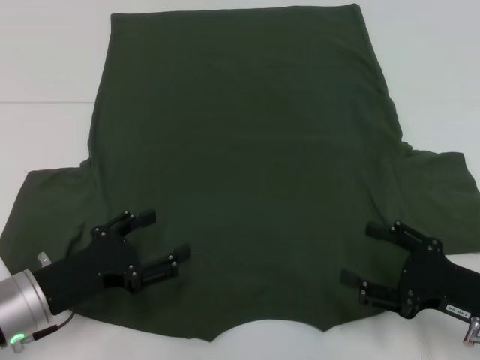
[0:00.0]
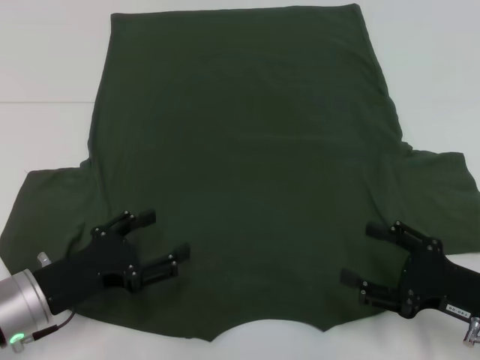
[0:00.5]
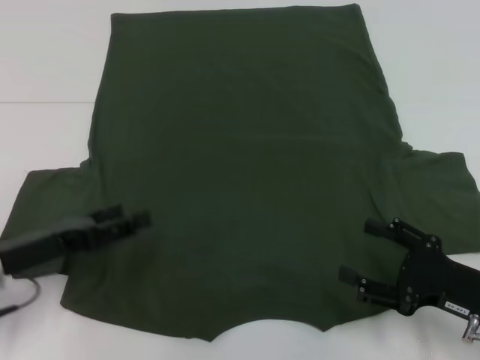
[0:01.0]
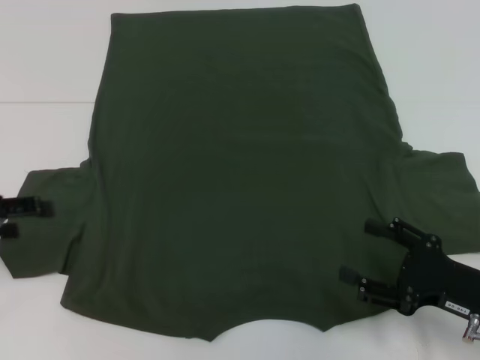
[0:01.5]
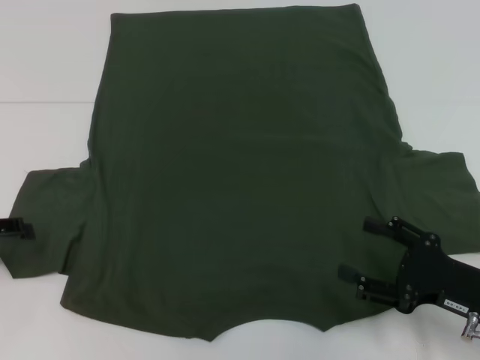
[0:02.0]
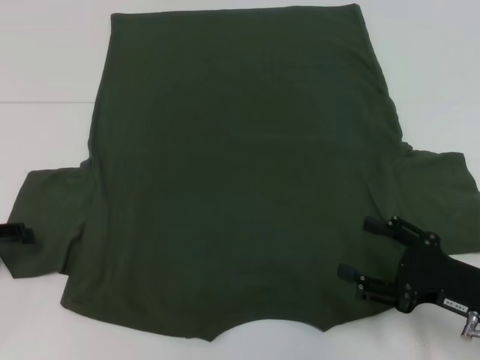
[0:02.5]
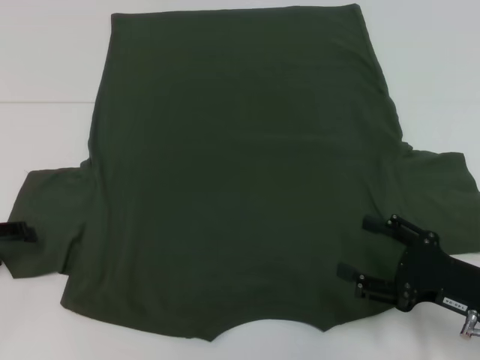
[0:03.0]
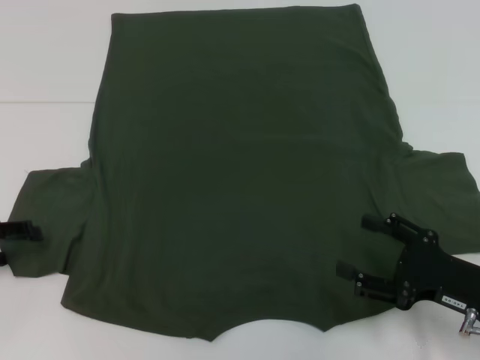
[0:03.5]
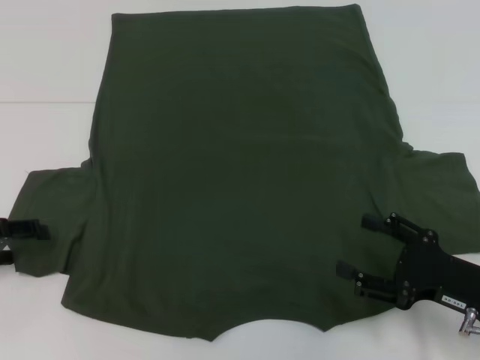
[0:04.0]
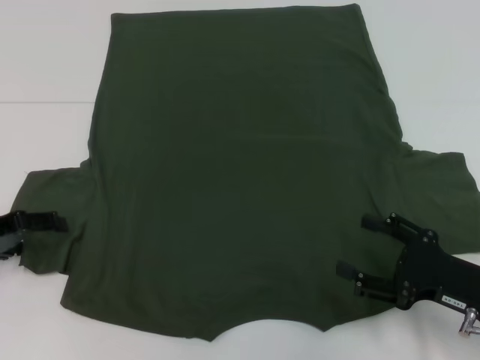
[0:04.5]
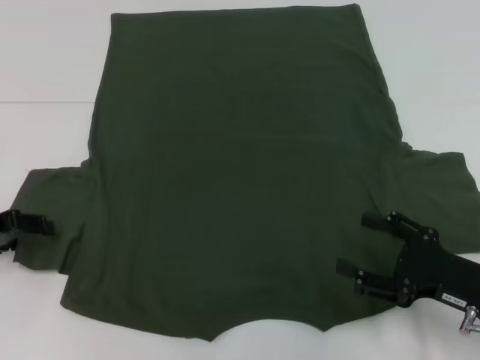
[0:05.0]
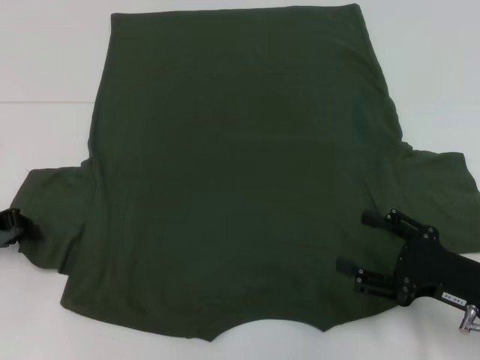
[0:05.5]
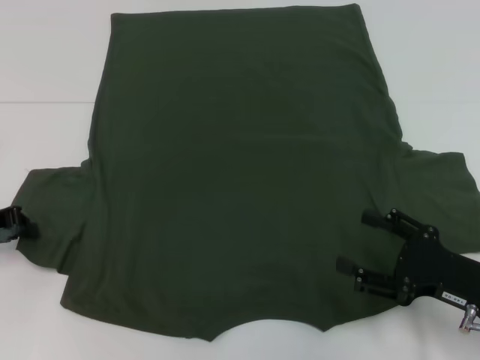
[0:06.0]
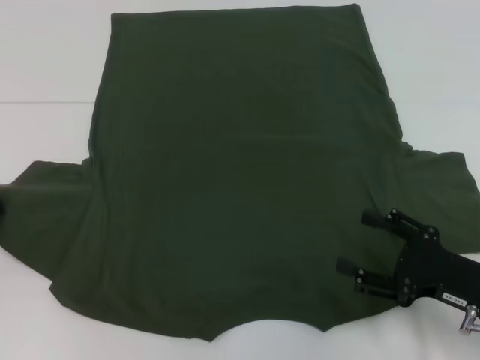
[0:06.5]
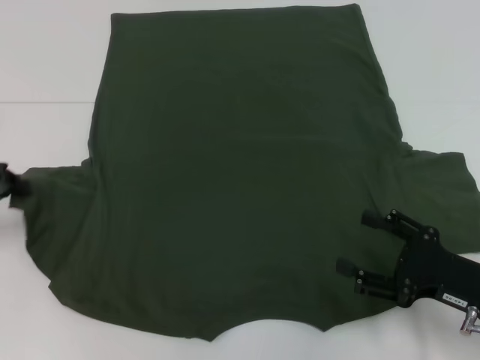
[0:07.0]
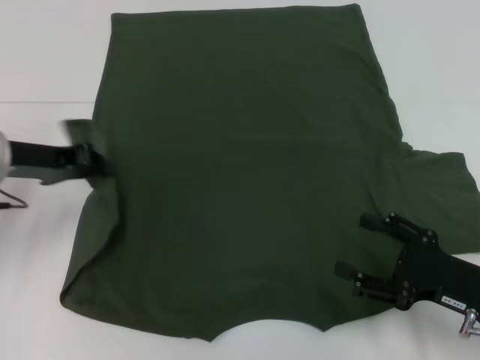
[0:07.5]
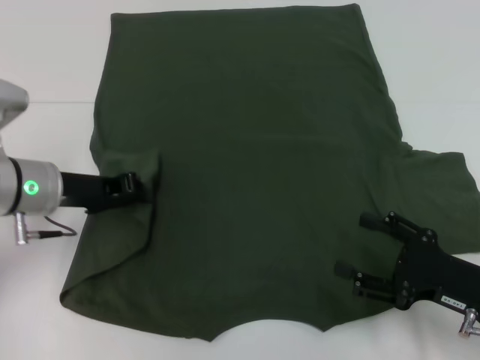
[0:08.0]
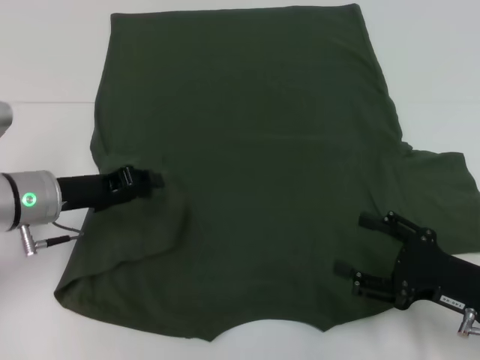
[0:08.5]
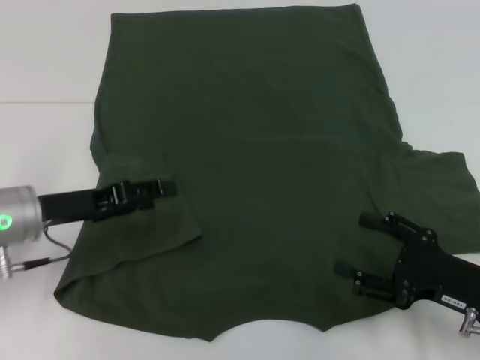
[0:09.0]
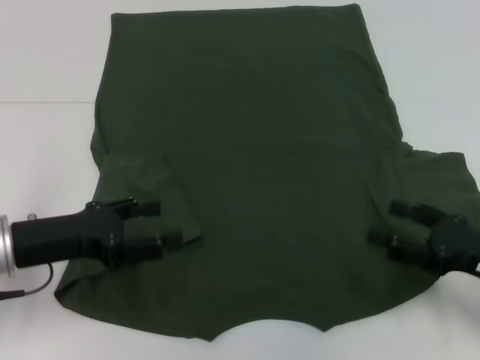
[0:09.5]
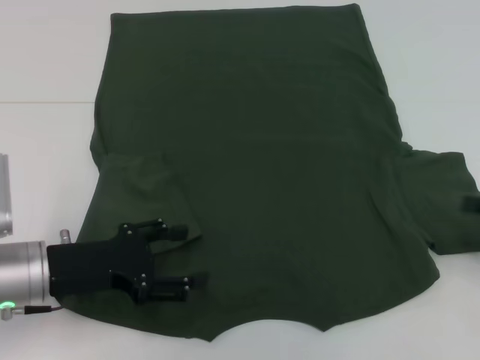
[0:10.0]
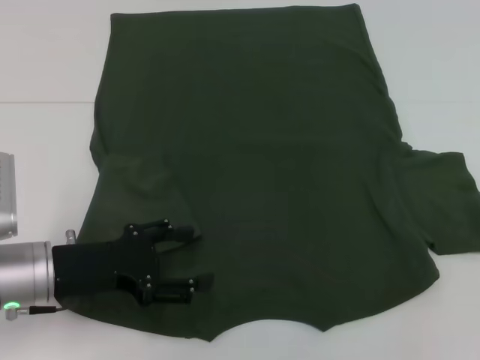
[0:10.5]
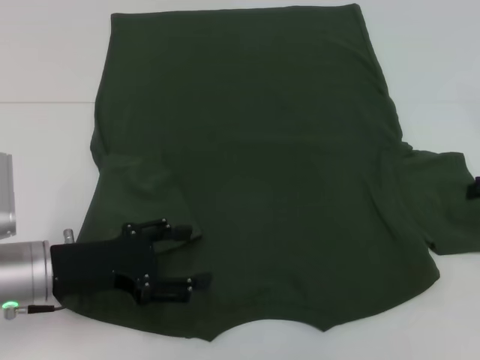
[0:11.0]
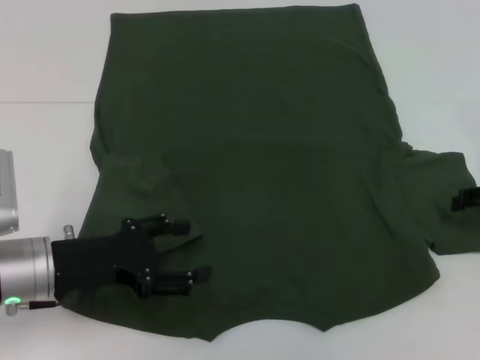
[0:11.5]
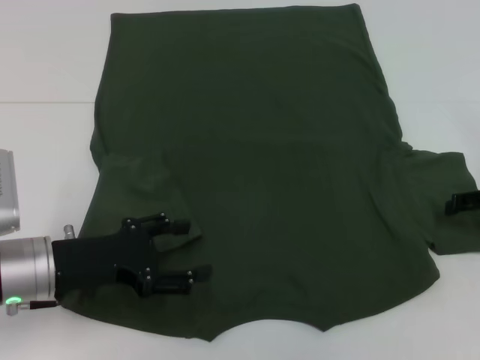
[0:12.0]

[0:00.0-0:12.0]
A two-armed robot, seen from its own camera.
Step, 0:00.0 to 0:08.5: Fold the bottom left sleeve with your left hand.
0:00.0 to 0:02.0: The left gripper shifts some 15 cm to the left and upward.
0:02.0 to 0:04.0: The grippers make only small movements.
0:04.0 to 0:06.0: The left gripper closes.
0:06.0 to 0:08.0: The left gripper moves to the right, some 10 cm.
0:08.0 to 0:10.0: The left gripper shifts approximately 10 cm backward, and opens, while the right gripper heads to the right and upward, covering approximately 15 cm.

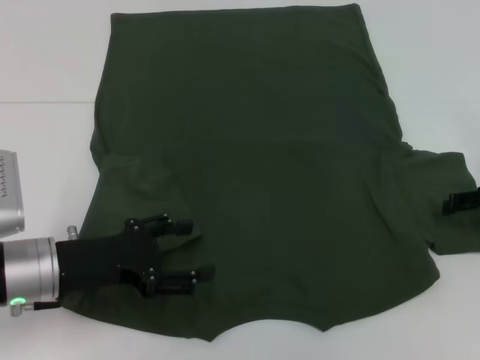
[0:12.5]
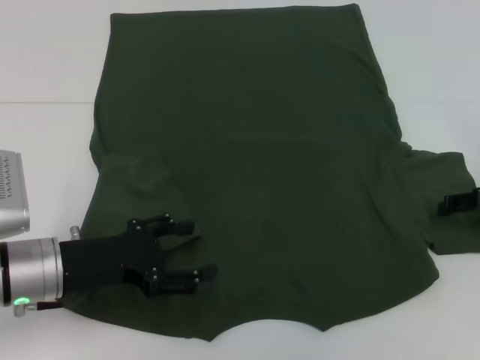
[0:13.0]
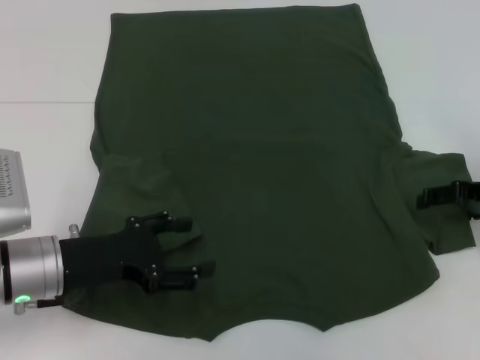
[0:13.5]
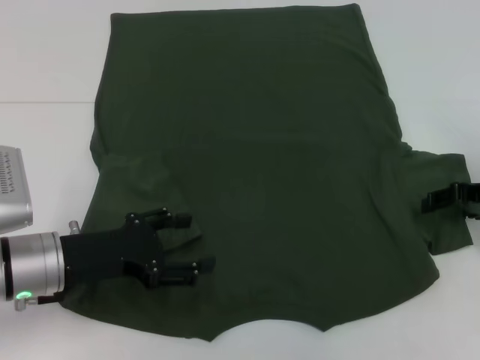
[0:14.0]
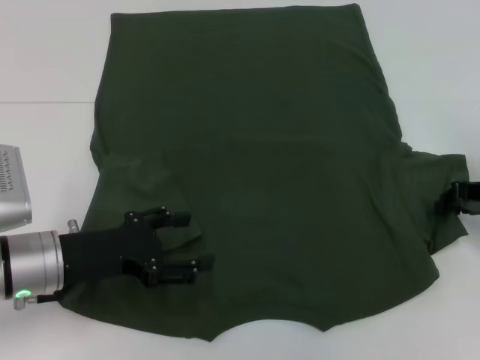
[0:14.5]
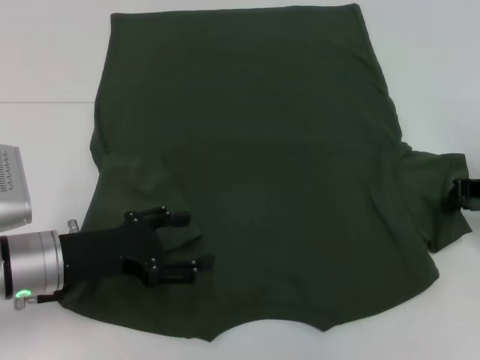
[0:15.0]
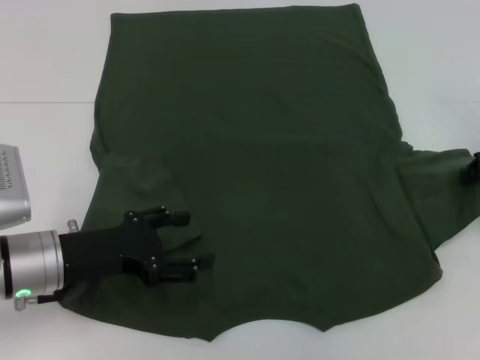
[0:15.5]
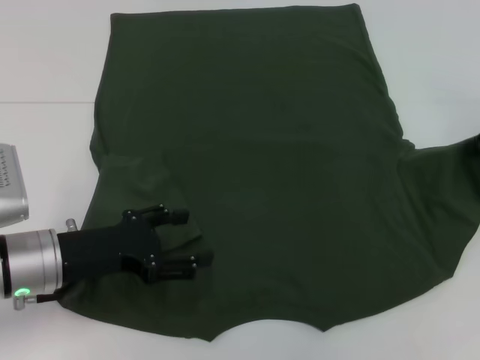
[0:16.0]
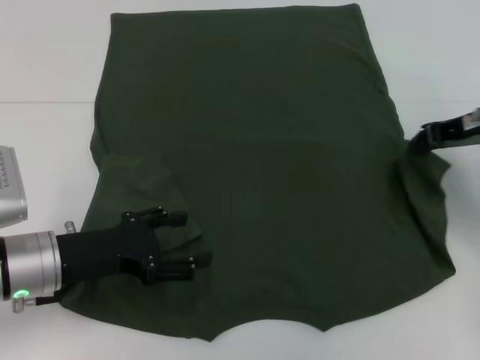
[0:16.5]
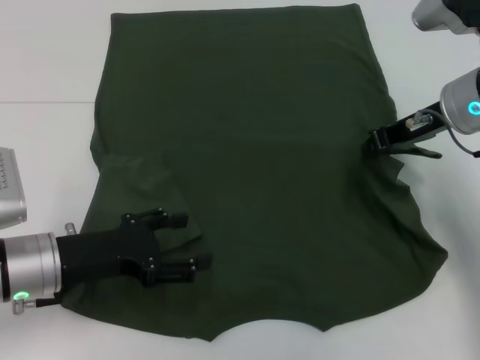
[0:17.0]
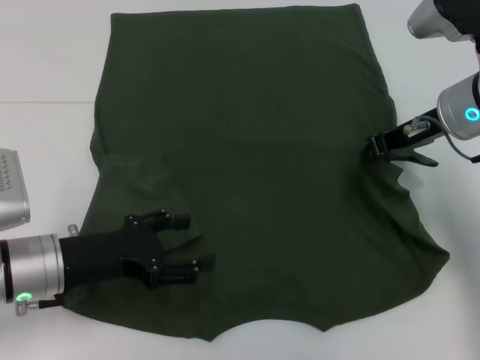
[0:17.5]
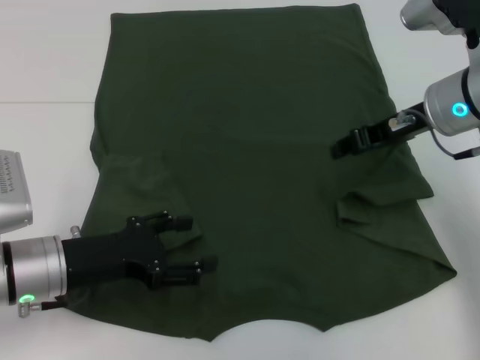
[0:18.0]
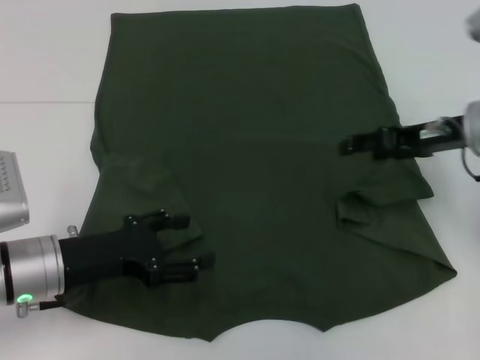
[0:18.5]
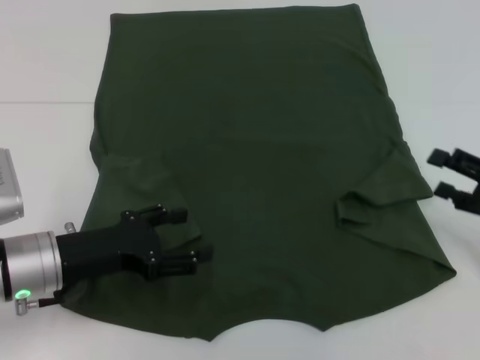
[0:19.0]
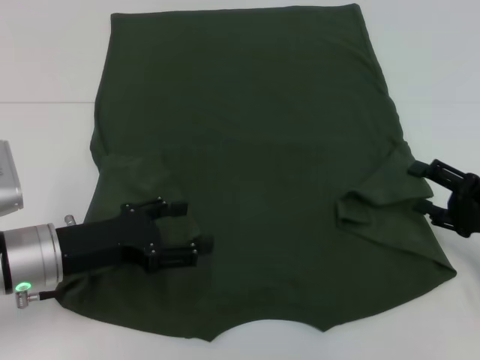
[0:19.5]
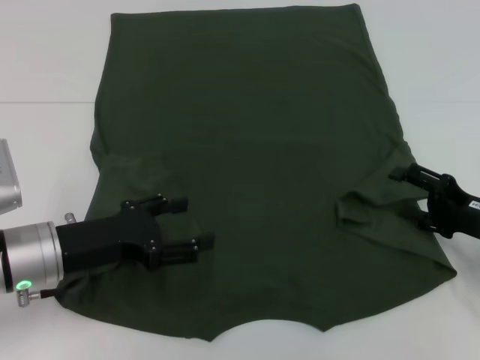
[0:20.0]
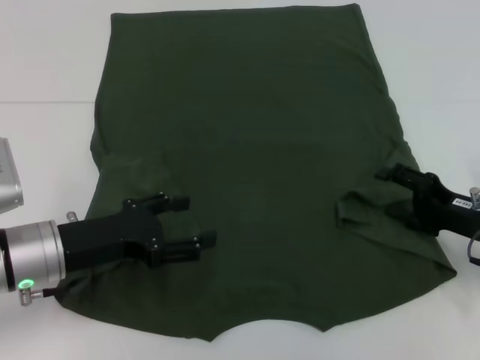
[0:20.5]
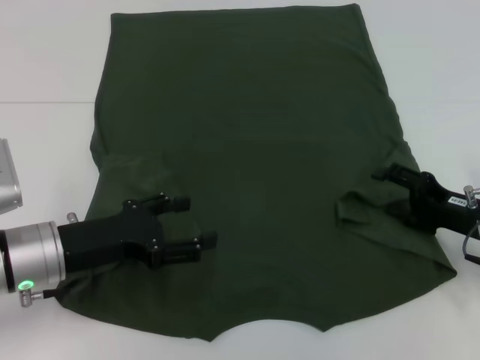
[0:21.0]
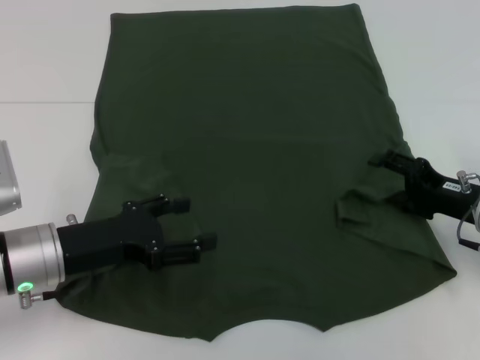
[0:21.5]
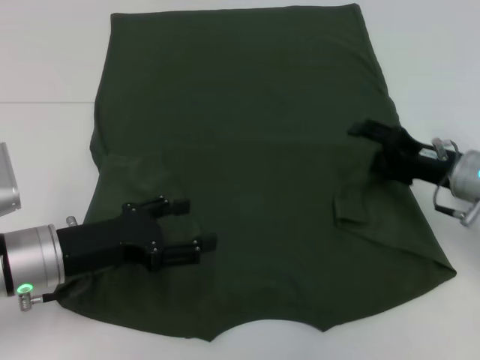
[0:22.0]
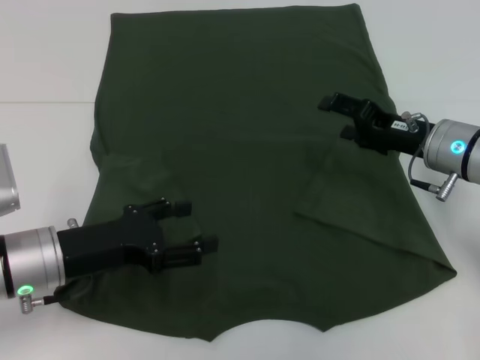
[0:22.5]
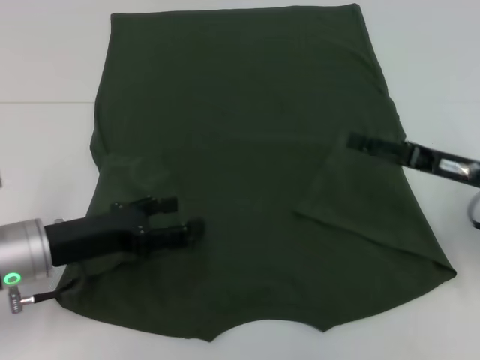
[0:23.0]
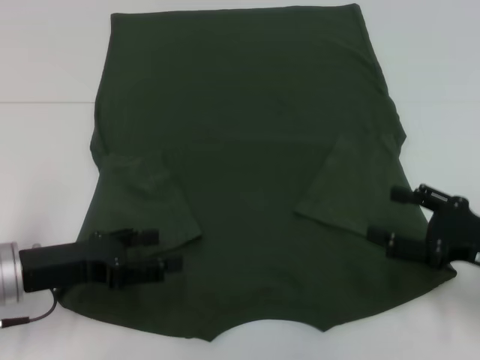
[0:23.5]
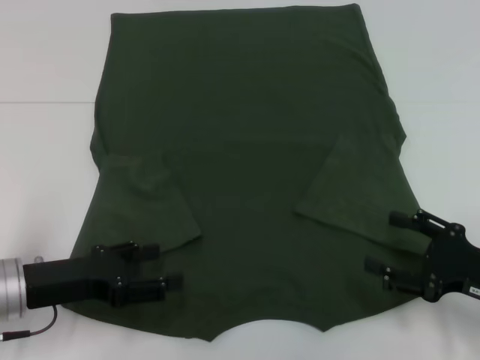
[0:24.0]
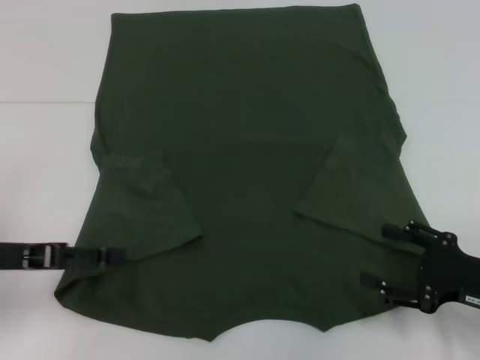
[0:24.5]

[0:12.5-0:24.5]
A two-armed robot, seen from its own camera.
Step, 0:12.5 to 0:22.5: Fold the bottom right sleeve with your right hand.
0:12.5 to 0:14.5: The right gripper closes.
0:14.5 to 0:16.5: The right gripper shifts approximately 5 cm upward, and closes its fingers.
0:16.5 to 0:18.5: The right gripper opens.
0:18.5 to 0:20.5: The right gripper moves downward and backward, about 15 cm.
0:20.5 to 0:22.5: The right gripper is displaced forward, to the left and upward by about 10 cm.
0:22.5 to 0:24.5: The right gripper moves backward and to the right, about 15 cm. Meanwhile the left gripper travels to the left by some 10 cm.

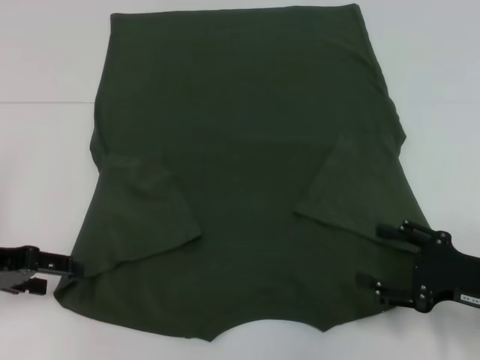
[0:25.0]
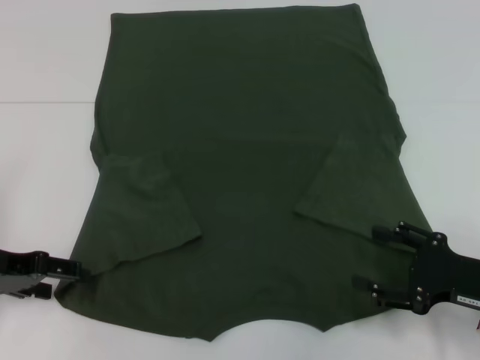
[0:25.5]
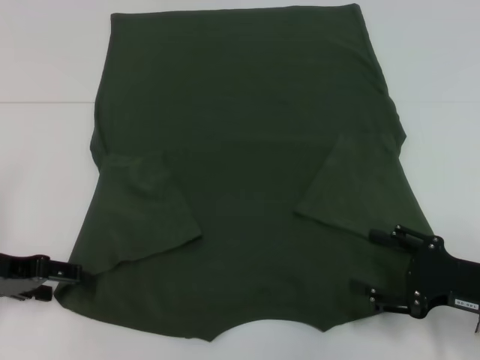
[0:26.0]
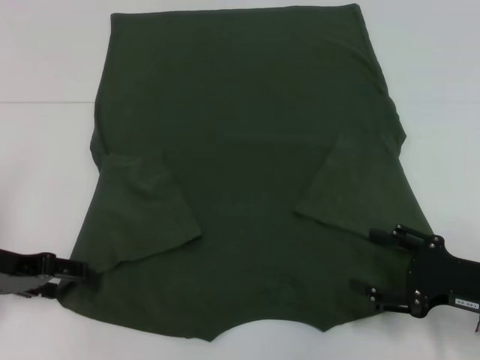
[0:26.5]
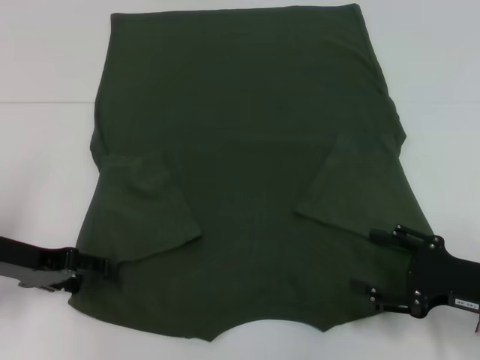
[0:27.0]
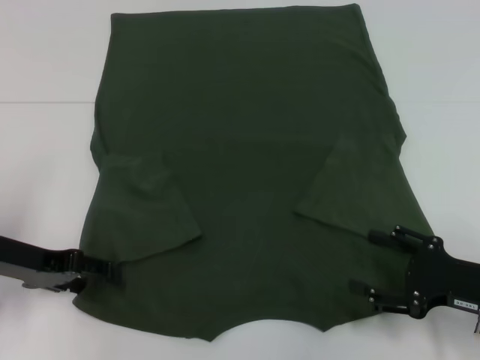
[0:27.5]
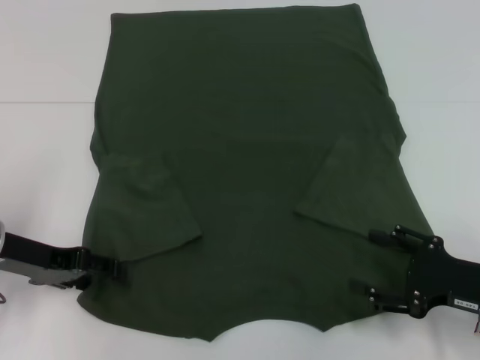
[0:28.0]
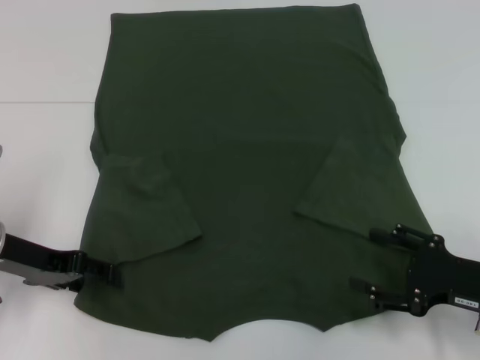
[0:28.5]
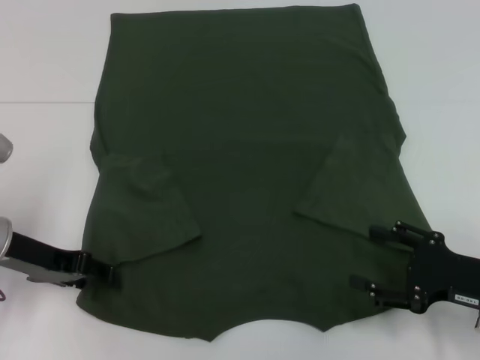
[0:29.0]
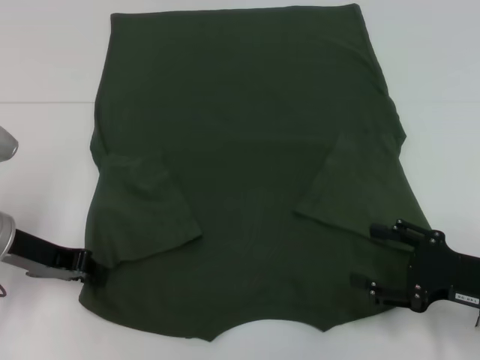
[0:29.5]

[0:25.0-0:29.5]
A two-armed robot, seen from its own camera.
0:25.0 to 0:27.0: The grippers stay close to where they were, moving slightly.
0:27.0 to 0:29.5: The left gripper closes its fingers.
